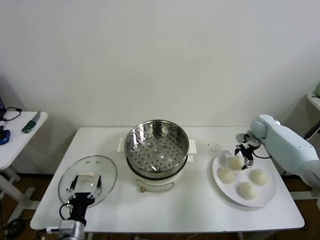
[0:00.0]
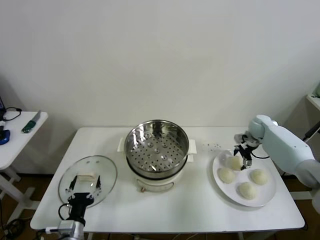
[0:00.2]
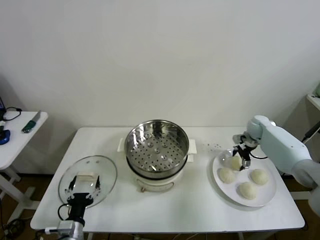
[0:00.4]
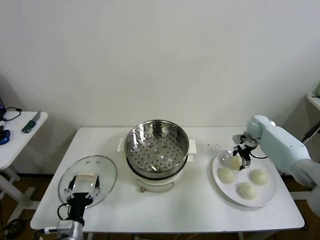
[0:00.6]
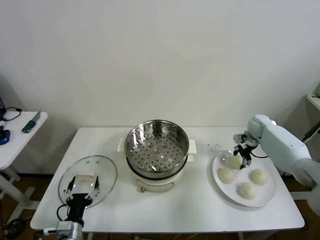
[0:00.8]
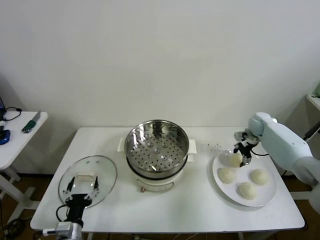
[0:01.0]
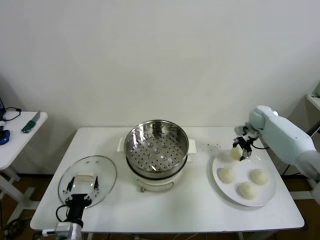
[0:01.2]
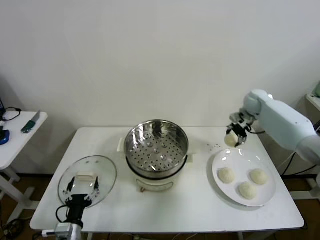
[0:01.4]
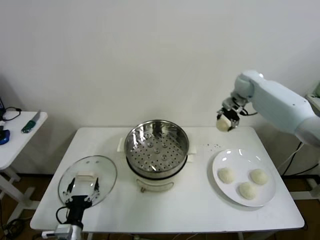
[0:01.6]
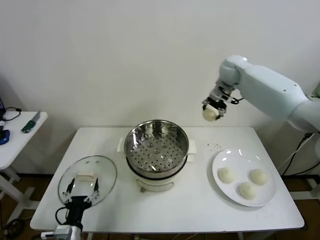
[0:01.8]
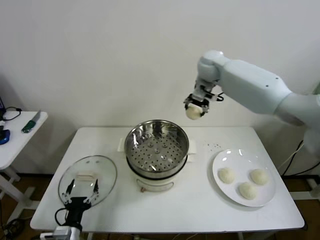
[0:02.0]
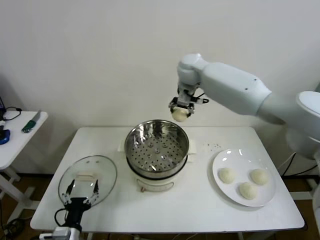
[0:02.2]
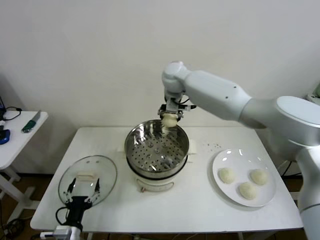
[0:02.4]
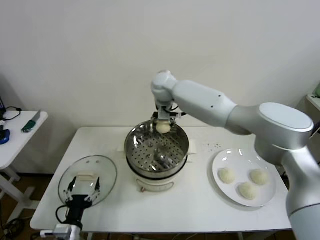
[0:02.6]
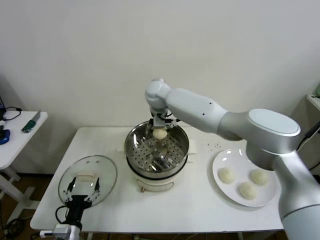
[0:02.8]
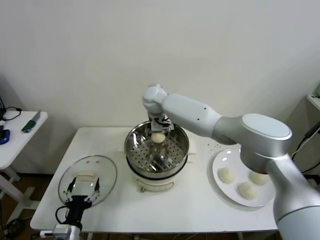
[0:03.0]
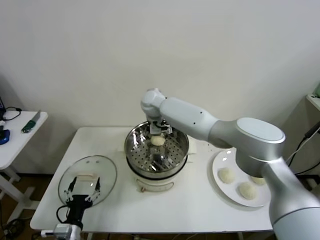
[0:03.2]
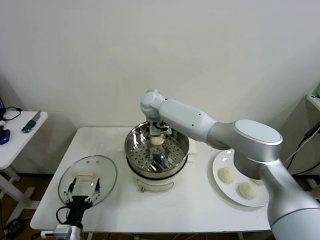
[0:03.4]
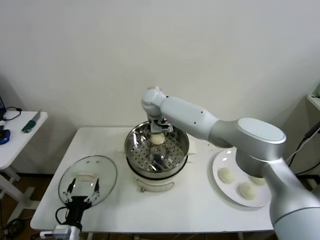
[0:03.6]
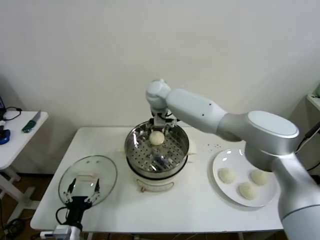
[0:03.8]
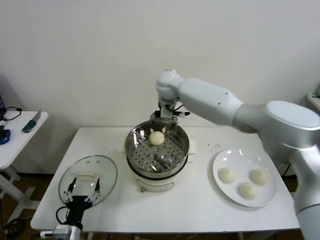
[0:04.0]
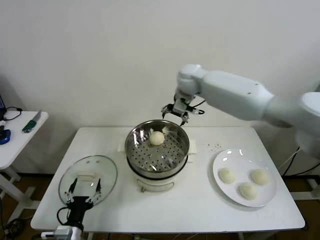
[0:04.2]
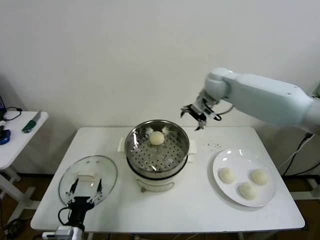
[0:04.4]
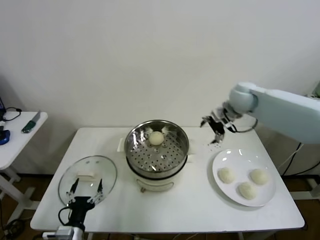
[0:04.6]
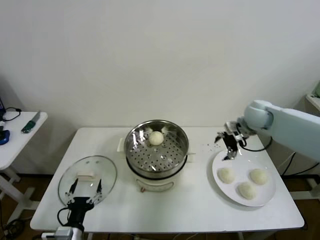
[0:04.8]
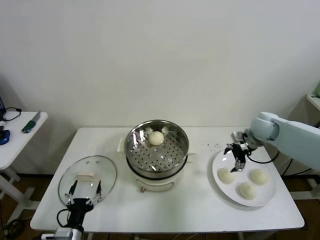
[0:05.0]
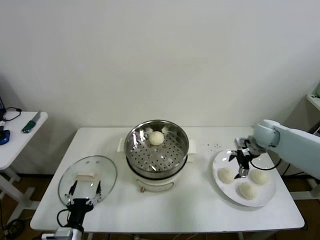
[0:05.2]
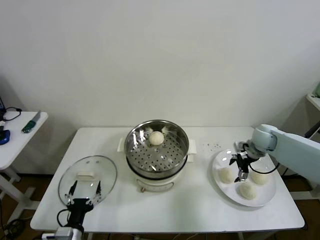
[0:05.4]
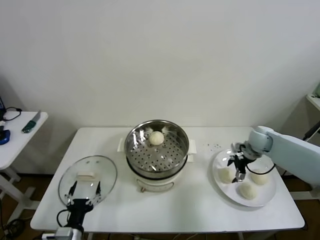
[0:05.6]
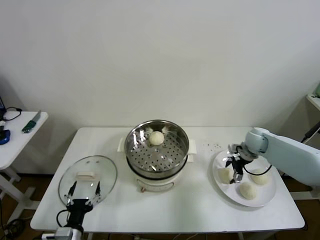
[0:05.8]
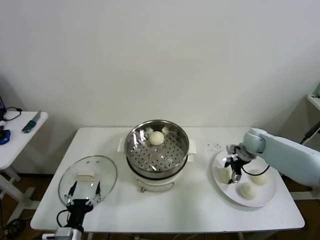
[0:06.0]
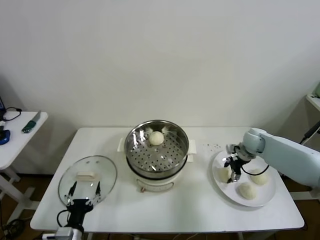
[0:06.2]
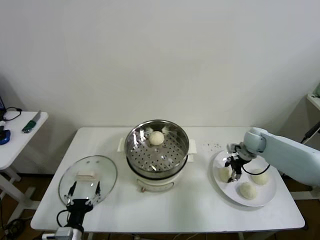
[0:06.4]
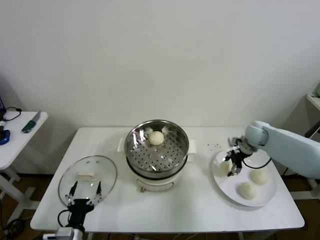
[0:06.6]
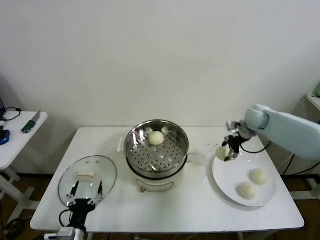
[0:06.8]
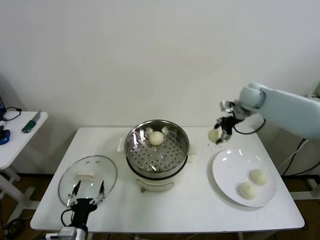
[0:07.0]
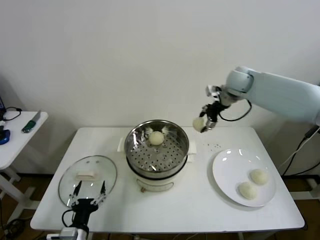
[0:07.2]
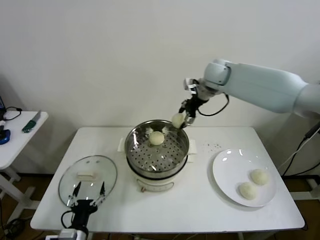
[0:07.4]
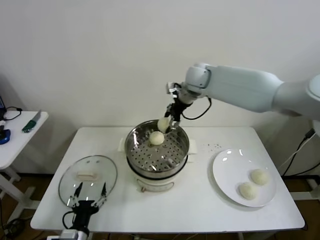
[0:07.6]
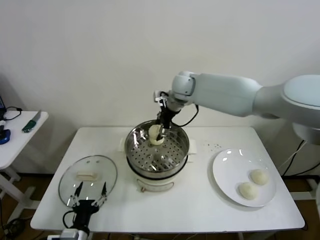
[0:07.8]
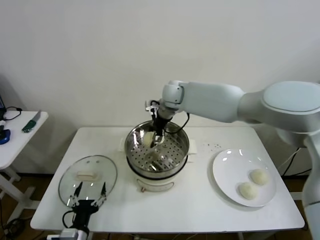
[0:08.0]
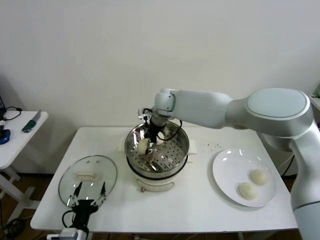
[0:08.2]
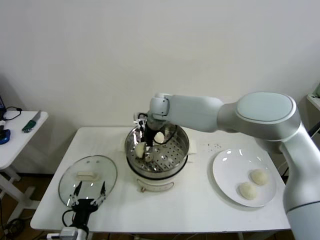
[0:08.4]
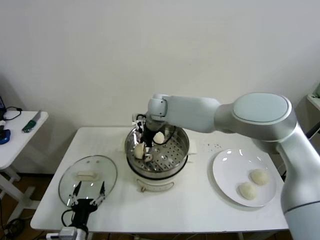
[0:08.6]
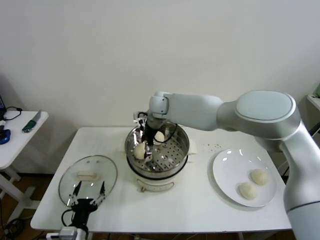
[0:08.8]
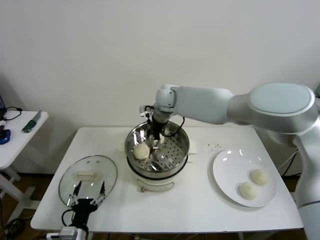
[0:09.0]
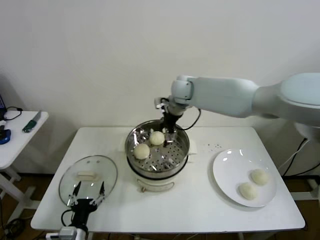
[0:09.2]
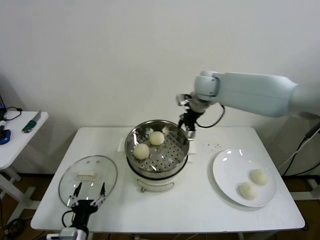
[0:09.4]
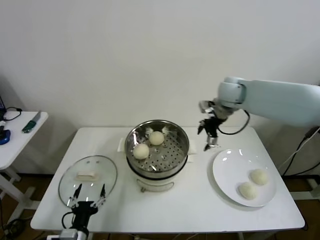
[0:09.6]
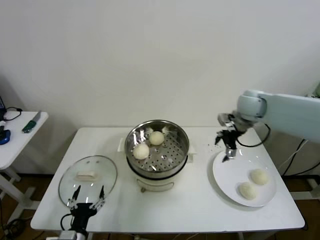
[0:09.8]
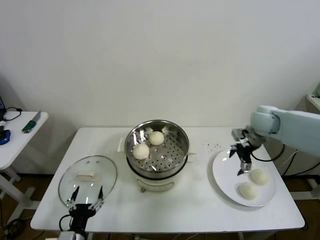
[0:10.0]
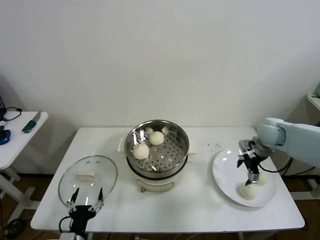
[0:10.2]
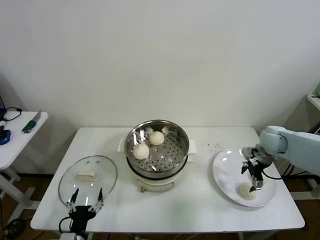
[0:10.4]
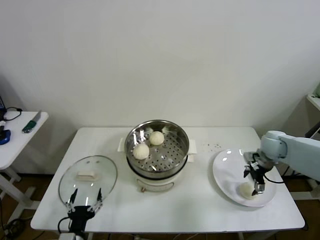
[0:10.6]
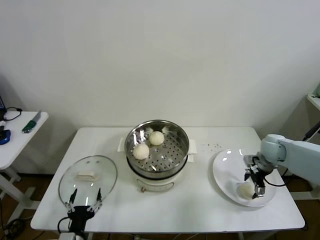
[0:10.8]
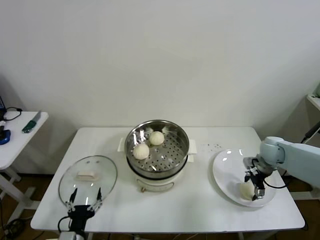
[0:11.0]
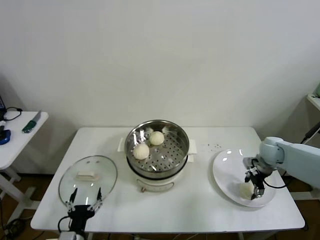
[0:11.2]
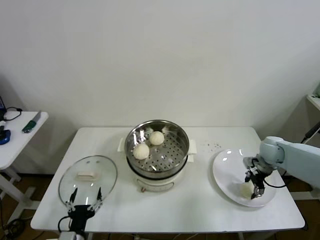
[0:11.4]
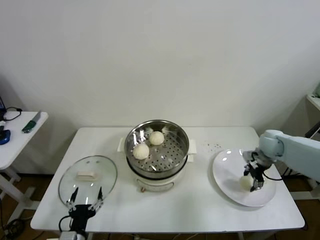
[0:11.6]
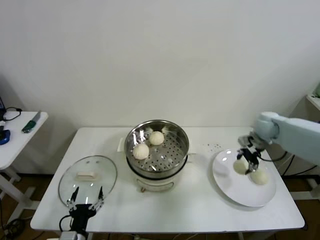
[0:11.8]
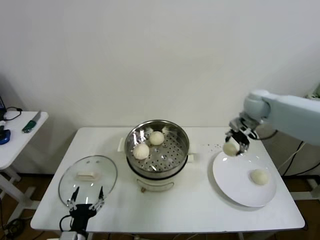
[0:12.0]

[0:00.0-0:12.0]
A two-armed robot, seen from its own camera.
Step, 0:00.8 to 0:03.0: Place the baozi on the steamer with right gripper.
Step, 0:03.4 to 0:06.0: Grasp the baozi in the plate with right gripper.
Step, 0:06.2 to 0:08.6: Place the baozi on the steamer with right gripper.
Step, 0:08.8 to 0:11.2: Grasp the baozi in the plate with right gripper.
0:00.0 to 0:01.6: The right gripper heads upward and to the left, covering about 25 cm, and closes.
0:01.6 to 0:03.0: The right gripper is displaced to the left by approximately 30 cm.
0:03.0 to 0:04.4: The right gripper travels to the right by some 25 cm, and opens its fingers.
0:04.4 to 0:06.0: The right gripper is displaced downward and to the right by about 25 cm, and closes its fingers.
0:06.0 to 0:07.6: The right gripper travels to the left and upward by approximately 35 cm.
0:07.6 to 0:09.0: The right gripper moves to the left and downward, roughly 10 cm, and opens.
0:09.0 to 0:10.4: The right gripper moves to the right, some 35 cm.
0:10.4 to 0:12.0: The right gripper is displaced upward, forward and to the left by approximately 15 cm, and closes up.

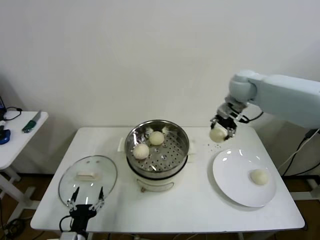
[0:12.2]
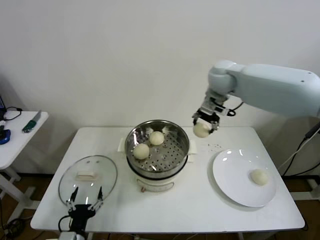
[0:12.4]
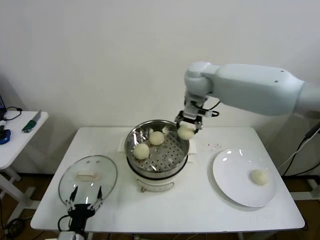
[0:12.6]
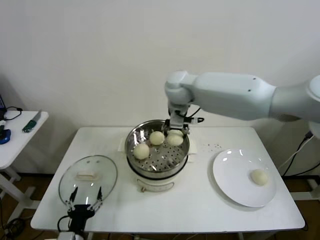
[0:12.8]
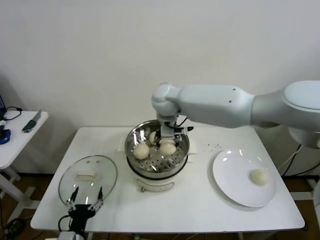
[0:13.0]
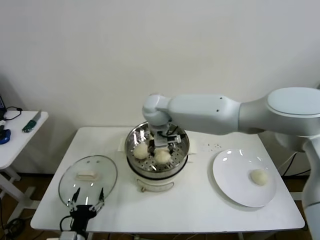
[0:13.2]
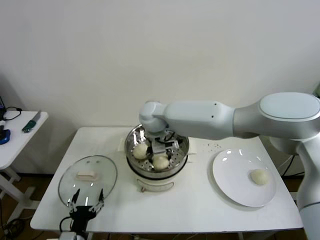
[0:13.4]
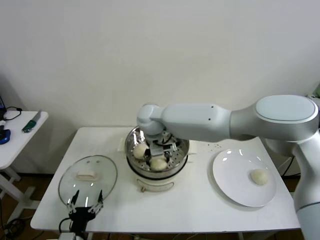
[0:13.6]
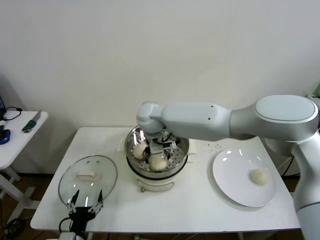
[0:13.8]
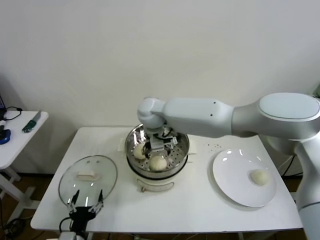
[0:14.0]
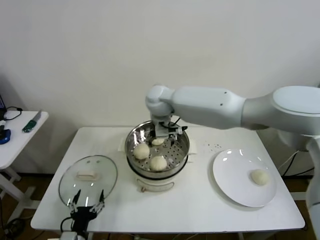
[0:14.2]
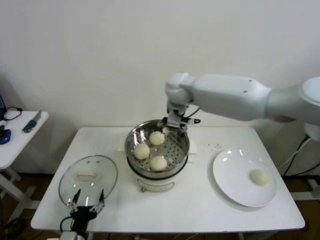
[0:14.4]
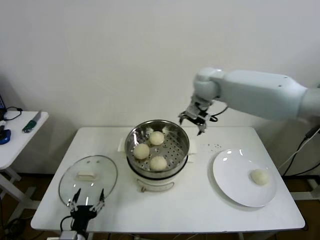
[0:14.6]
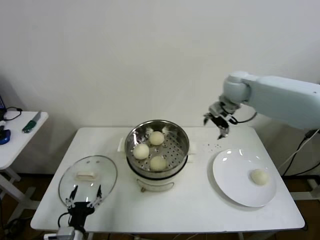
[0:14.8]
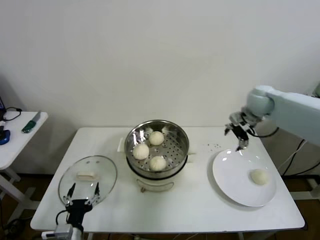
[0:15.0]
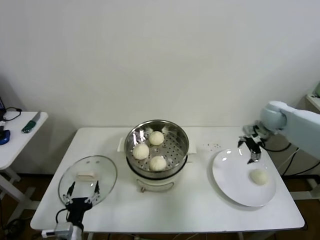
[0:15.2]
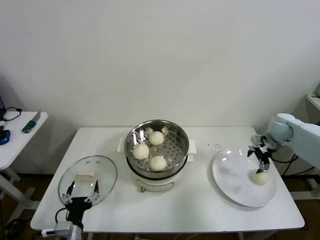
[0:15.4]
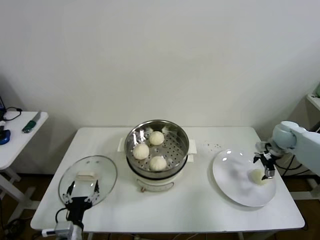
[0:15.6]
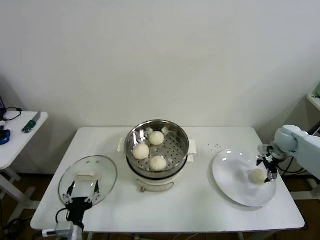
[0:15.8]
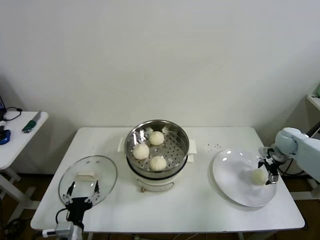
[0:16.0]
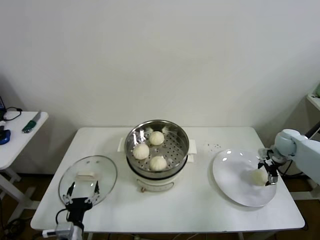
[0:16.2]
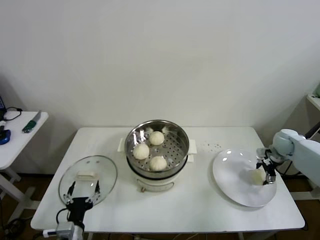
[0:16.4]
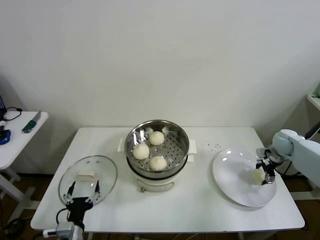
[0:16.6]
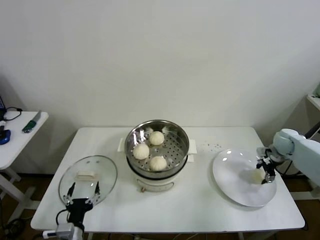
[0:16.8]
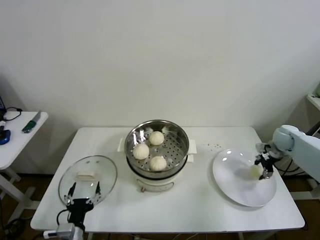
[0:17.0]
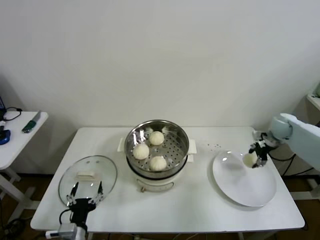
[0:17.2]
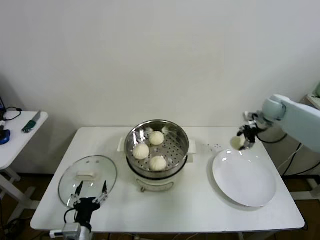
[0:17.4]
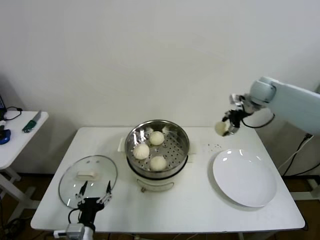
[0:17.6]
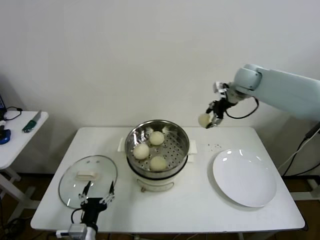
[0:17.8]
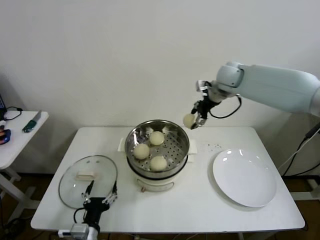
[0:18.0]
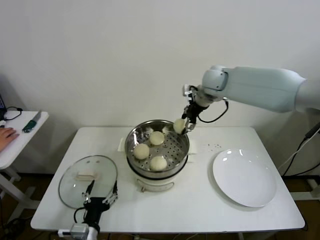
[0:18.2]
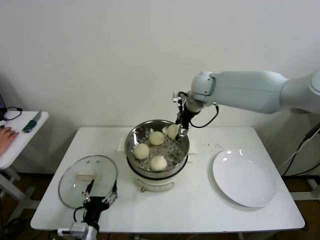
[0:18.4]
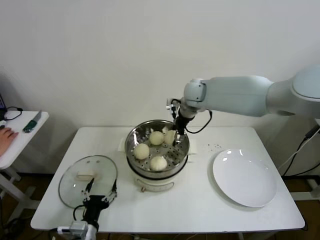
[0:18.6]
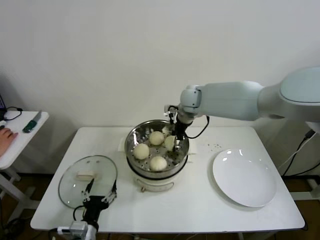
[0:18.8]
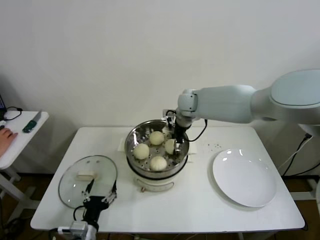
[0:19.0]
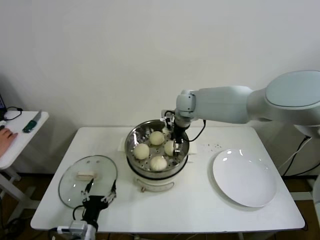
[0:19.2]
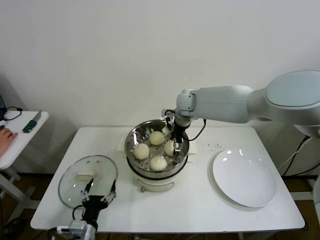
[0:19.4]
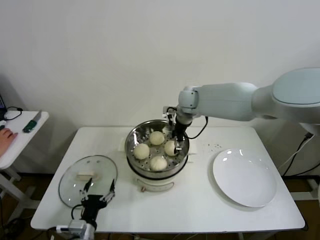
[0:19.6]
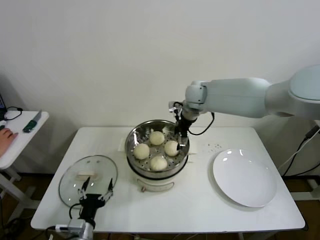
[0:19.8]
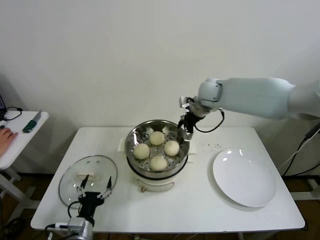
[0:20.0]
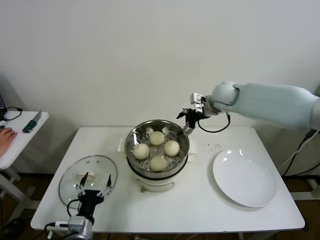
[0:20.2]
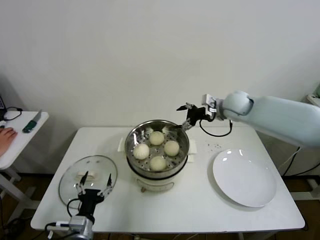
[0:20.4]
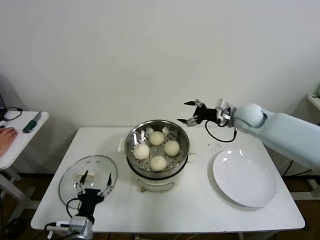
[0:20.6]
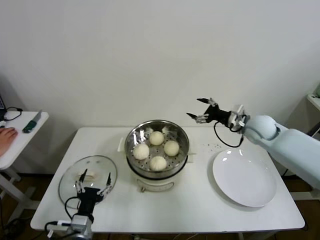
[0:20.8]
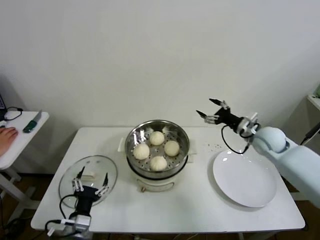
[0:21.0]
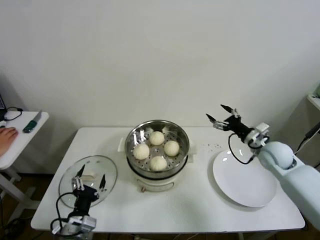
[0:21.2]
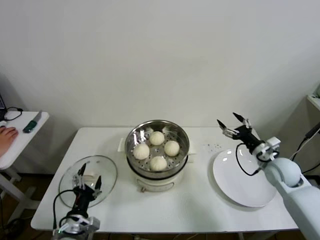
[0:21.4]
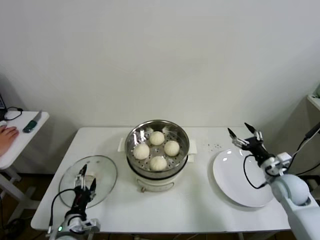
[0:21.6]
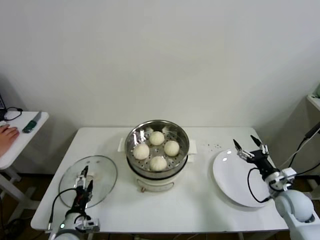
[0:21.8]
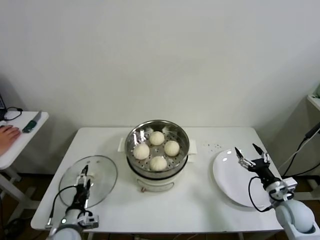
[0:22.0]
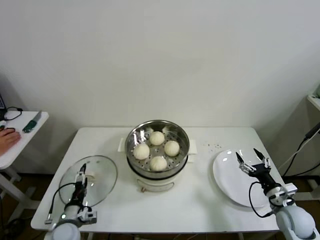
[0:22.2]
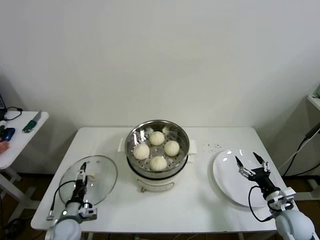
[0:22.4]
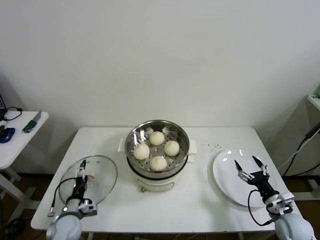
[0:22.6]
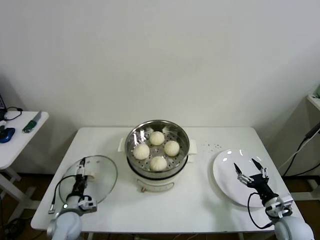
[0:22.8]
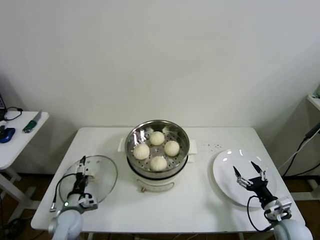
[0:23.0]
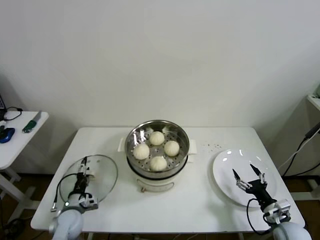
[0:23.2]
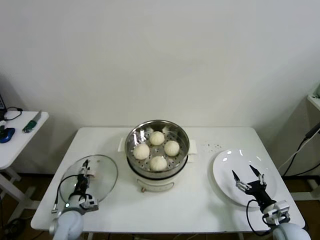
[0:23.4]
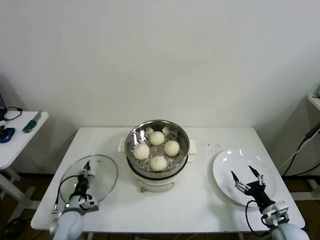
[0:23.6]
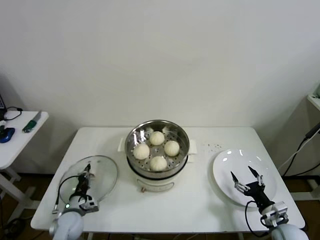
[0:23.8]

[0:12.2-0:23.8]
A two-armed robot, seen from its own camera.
Step, 0:12.2 to 0:13.6: Place the baozi on the steamer with right gripper.
Step, 0:13.8 to 0:16.6: Grasp the baozi in the plate with right gripper.
Step, 0:17.0 to 0:19.2: Place the baozi on the steamer with right gripper.
Step, 0:19.4 to 0:23.6: Grasp the pot lid with left gripper.
0:12.2 to 0:13.6: The right gripper is displaced to the left by about 30 cm, and opens its fingers.
0:13.6 to 0:15.0: The right gripper shifts roughly 40 cm to the right, and opens.
0:15.0 to 0:16.6: The right gripper moves downward and to the right, approximately 20 cm, and closes.
0:16.6 to 0:18.0: The right gripper shifts approximately 35 cm to the left and upward, and closes its fingers.
0:18.0 to 0:19.4: The right gripper goes some 15 cm to the left and downward, and opens.
0:19.4 to 0:21.0: The right gripper moves to the right and backward, roughly 30 cm.
0:21.0 to 0:22.4: The left gripper travels downward, to the left and forward by some 15 cm. Meanwhile the right gripper heads backward and downward, covering some 25 cm.
0:22.4 to 0:23.8: The left gripper closes. Meanwhile the right gripper changes place by about 5 cm.
